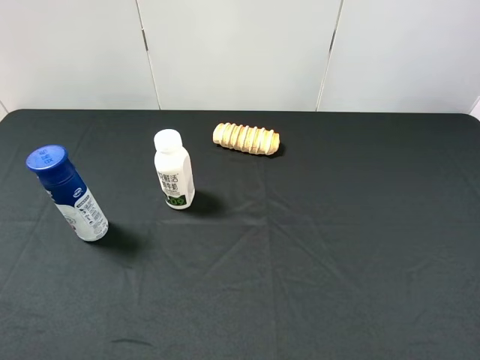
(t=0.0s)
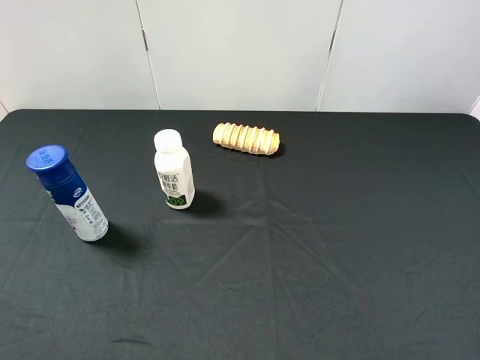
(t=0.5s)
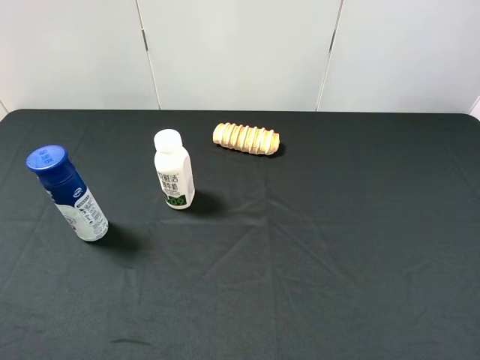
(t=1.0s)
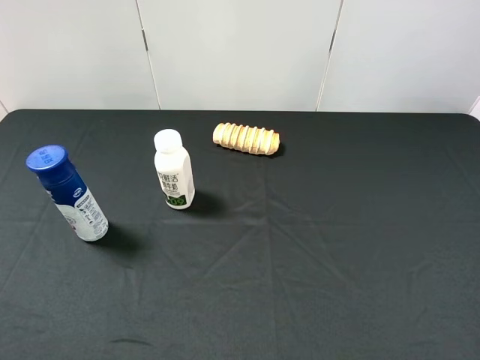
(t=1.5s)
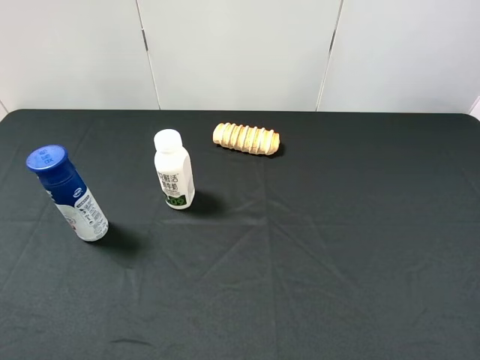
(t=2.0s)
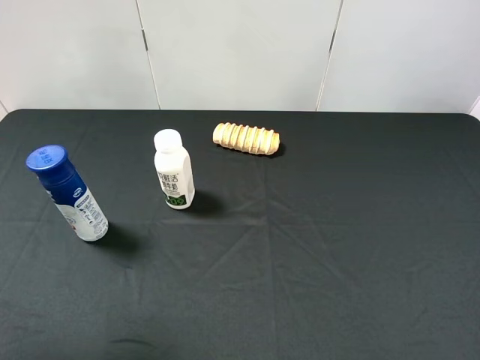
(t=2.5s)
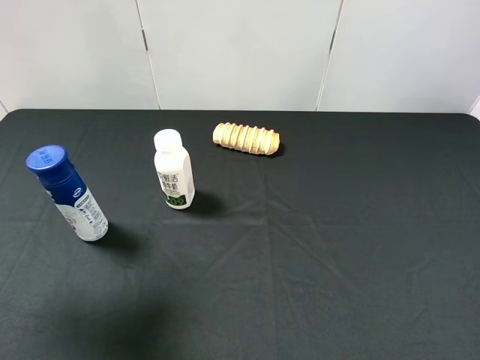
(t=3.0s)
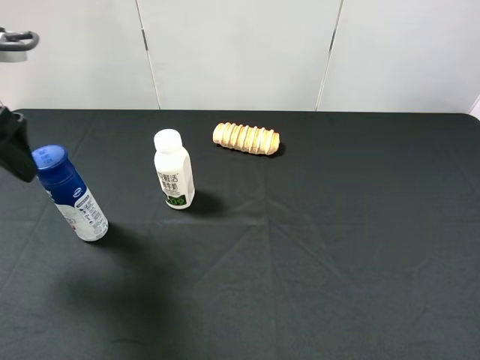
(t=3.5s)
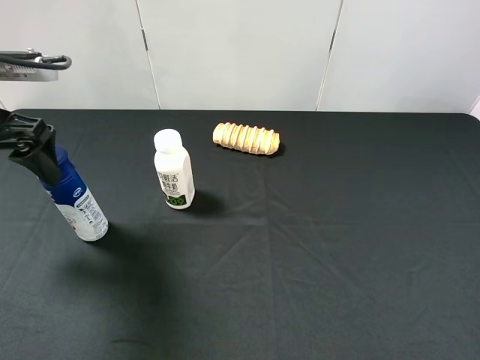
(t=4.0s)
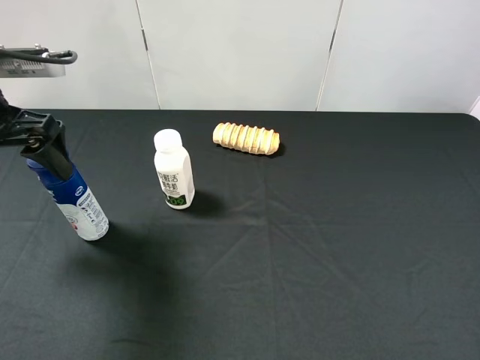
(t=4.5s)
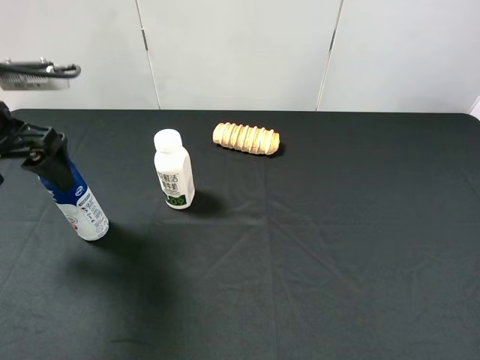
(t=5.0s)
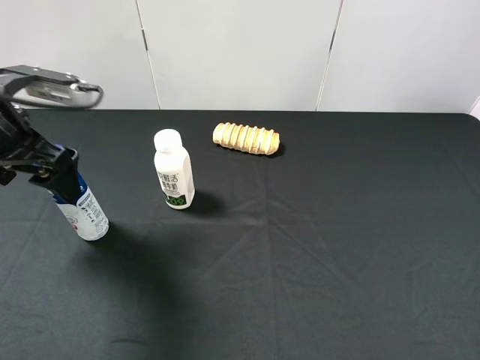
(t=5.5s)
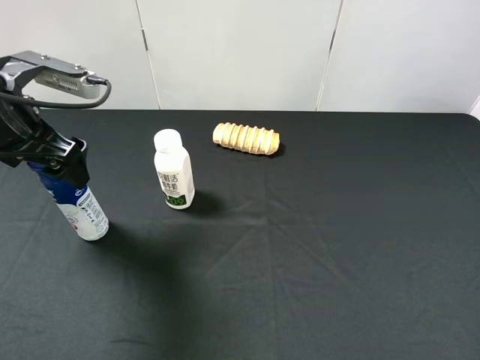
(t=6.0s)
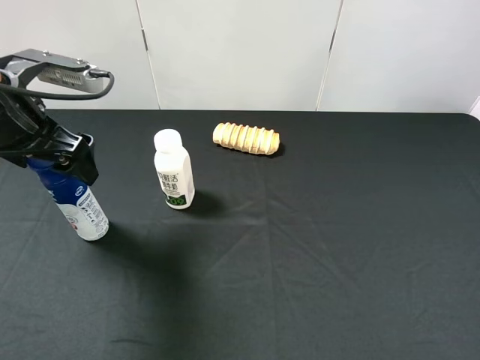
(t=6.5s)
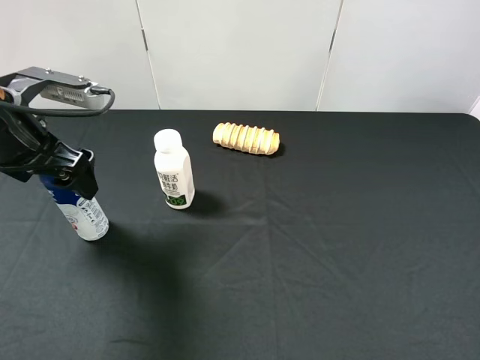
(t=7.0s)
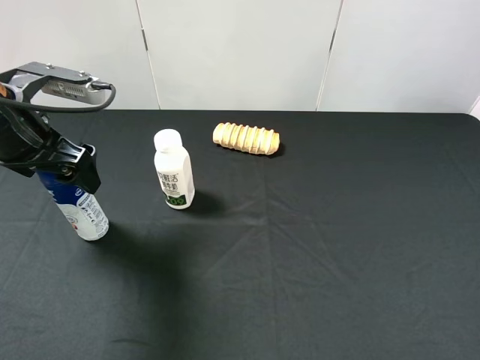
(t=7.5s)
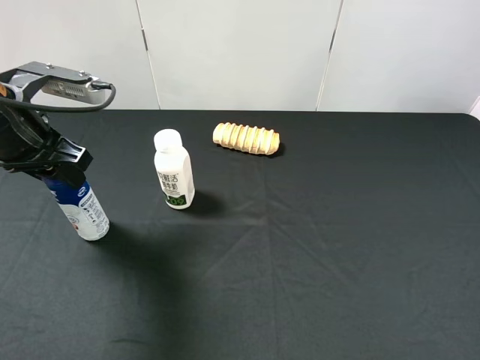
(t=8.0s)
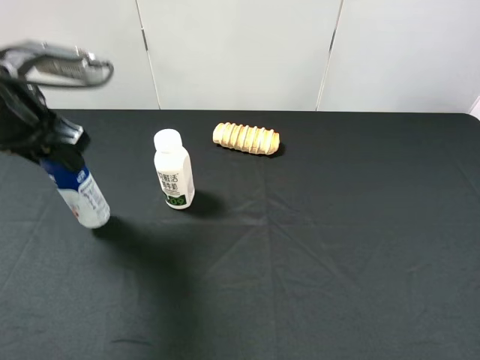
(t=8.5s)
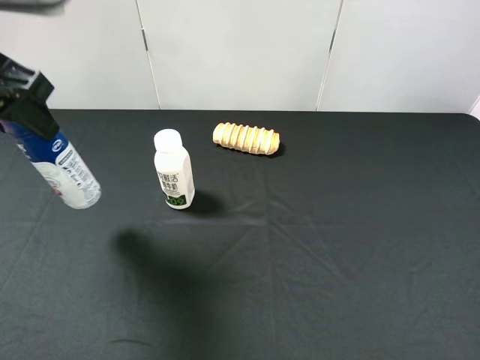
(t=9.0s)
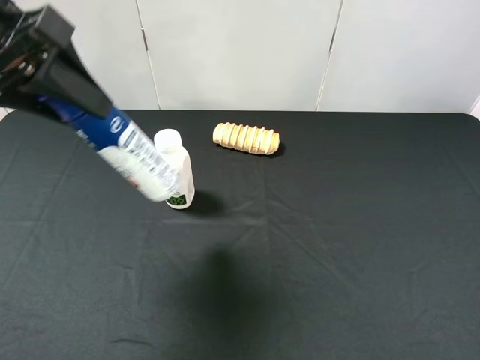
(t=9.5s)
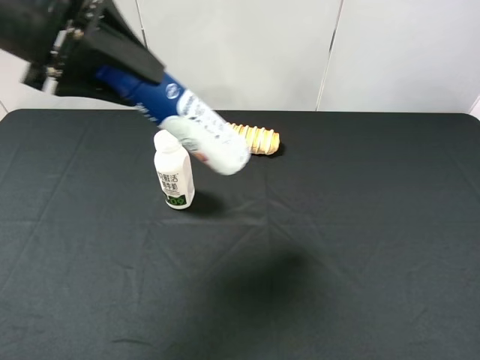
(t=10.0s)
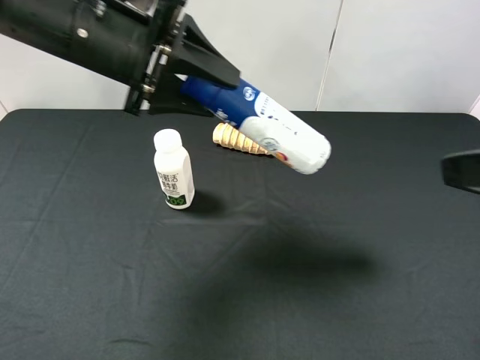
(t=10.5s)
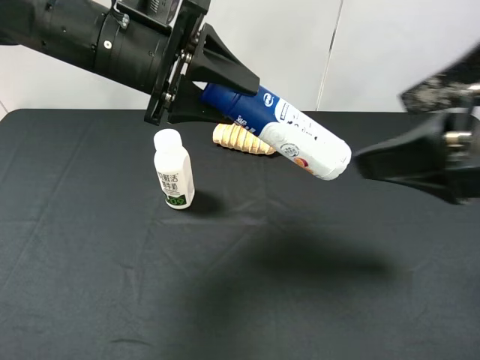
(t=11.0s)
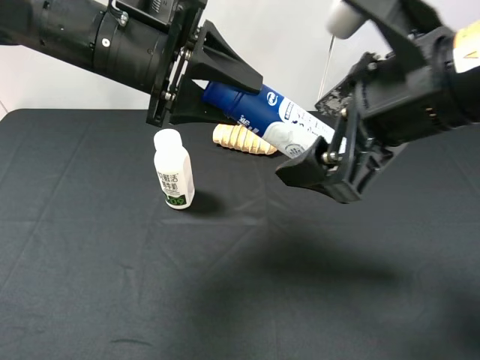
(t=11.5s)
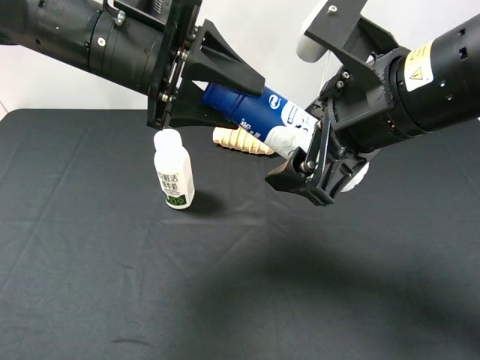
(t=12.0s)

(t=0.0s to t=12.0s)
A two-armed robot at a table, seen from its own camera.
Task of the whole recording: use the left gripper to pick up the item and transfer it from the left gripper to the right gripper.
t=2.0s - t=4.0s: The left gripper goes some 25 cm forward.
t=4.0s - t=6.0s: There are only small adjustments of the grippers.
t=6.0s - t=8.0s: The left gripper closes.
t=8.0s - t=10.0s: The left gripper is displaced upward and to the right by some 10 cm. Meanwhile the right gripper changes place by roughly 5 cm.
t=10.0s - t=12.0s: The right gripper goes approximately 20 cm to the left and forward, while the left gripper moves to the right and downward, roughly 10 cm.

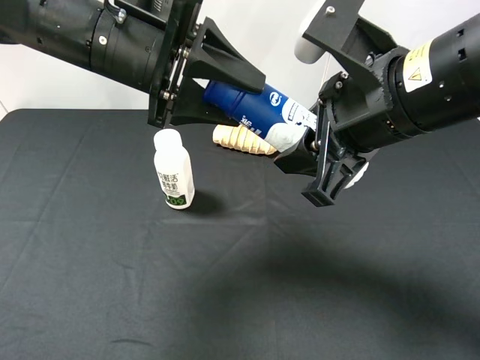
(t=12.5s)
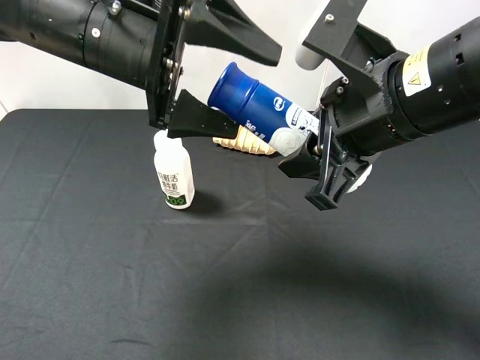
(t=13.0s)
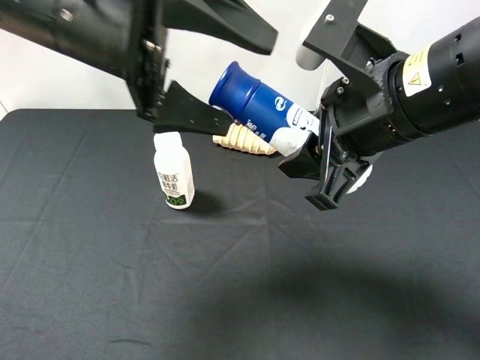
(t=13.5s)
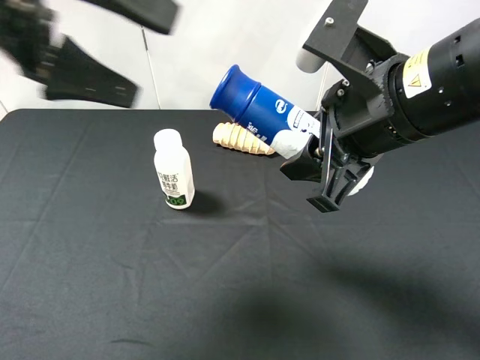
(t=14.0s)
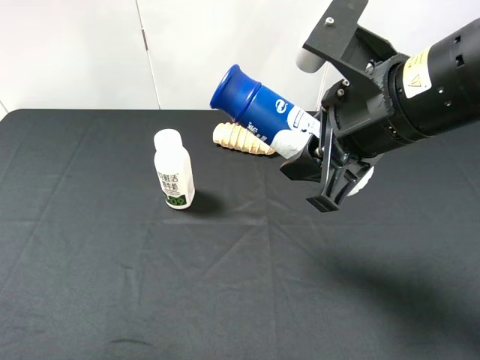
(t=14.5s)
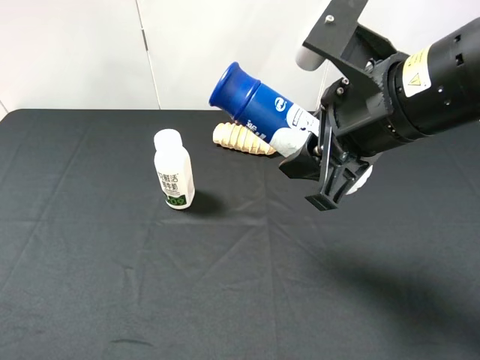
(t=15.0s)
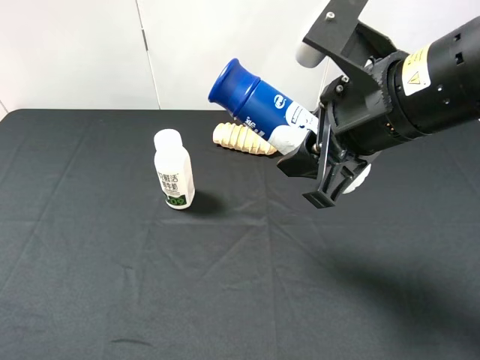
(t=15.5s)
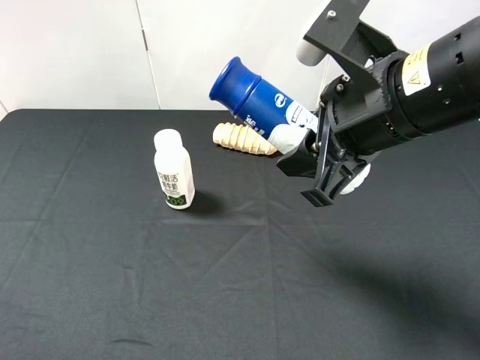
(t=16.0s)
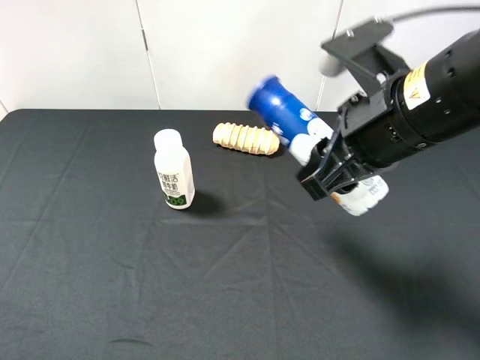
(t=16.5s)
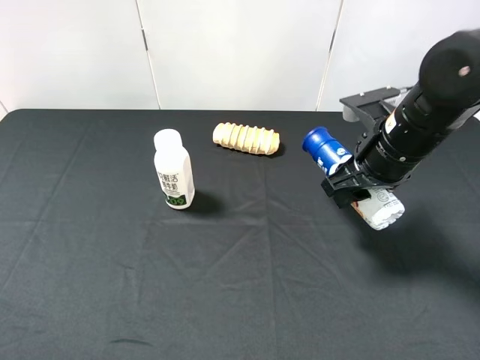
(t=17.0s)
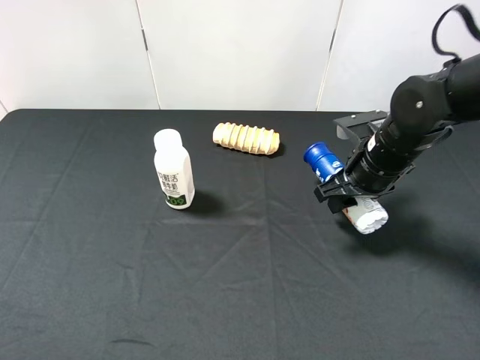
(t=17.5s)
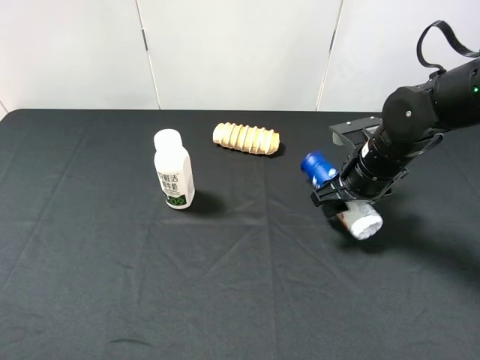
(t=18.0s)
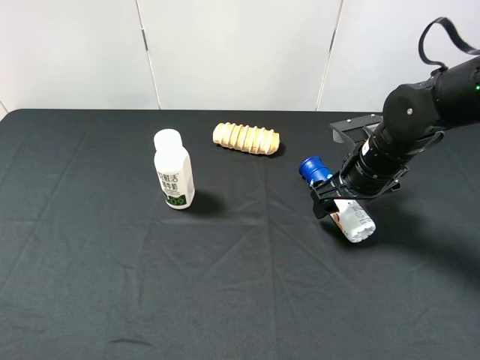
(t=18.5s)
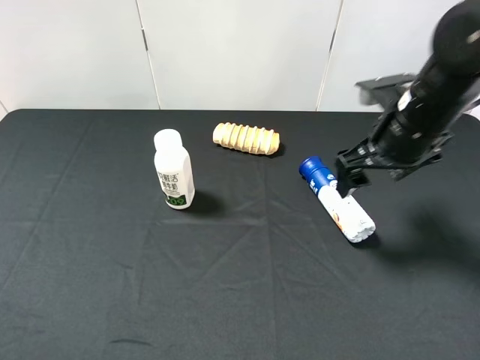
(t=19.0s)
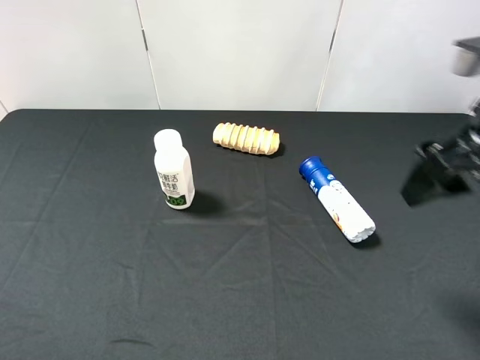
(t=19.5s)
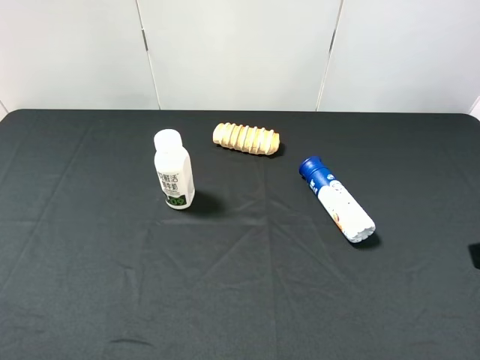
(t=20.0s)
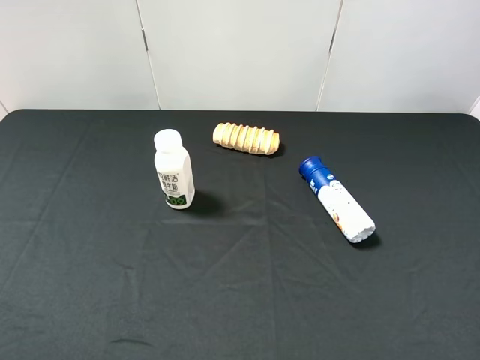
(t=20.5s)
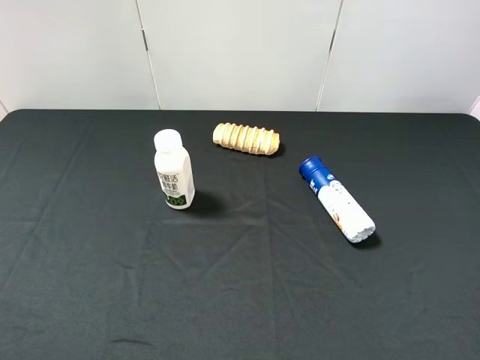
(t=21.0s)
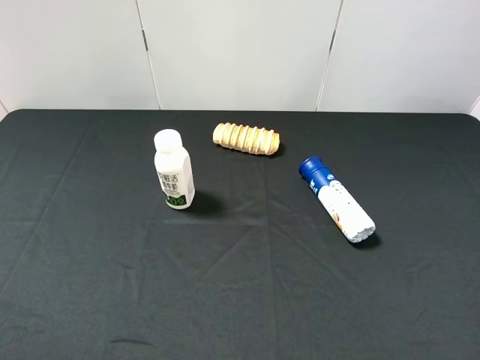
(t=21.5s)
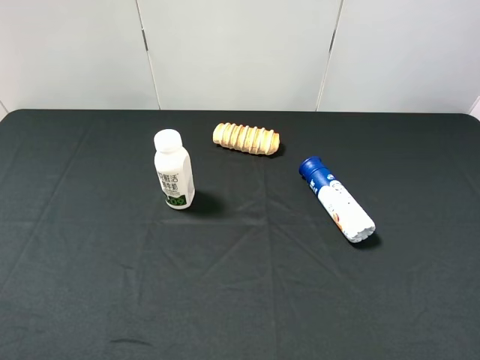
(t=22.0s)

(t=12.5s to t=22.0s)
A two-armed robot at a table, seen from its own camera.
Task of the whole recording: use the left gripper to pick up the item and transfer it from the left gripper to the right gripper.
t=12.5s - t=14.5s: The left gripper travels backward, to the left and upward by about 30 cm, and opens up.
t=14.5s - t=16.5s: The left gripper travels downward and backward by about 15 cm.
t=16.5s - t=18.0s: The right gripper heads downward and forward, covering some 15 cm, and opens.
t=18.0s - t=20.0s: The right gripper travels backward and upward by some 30 cm, and opens its fingers.
